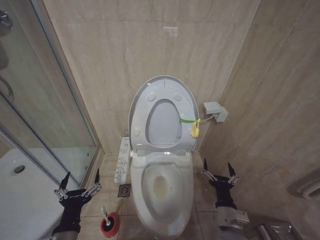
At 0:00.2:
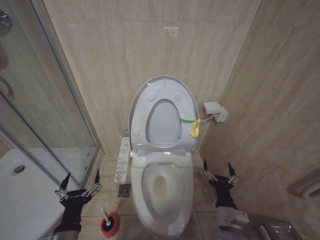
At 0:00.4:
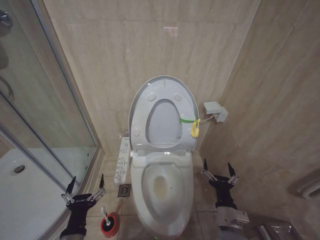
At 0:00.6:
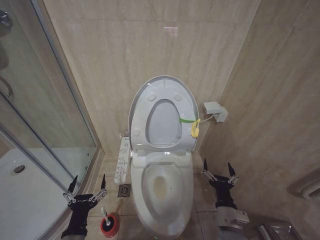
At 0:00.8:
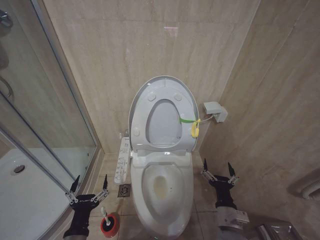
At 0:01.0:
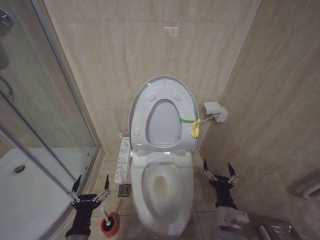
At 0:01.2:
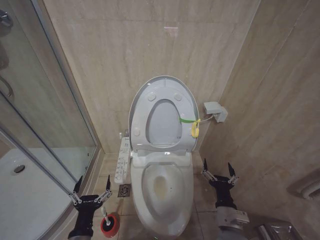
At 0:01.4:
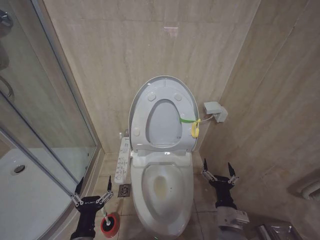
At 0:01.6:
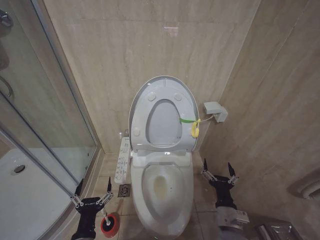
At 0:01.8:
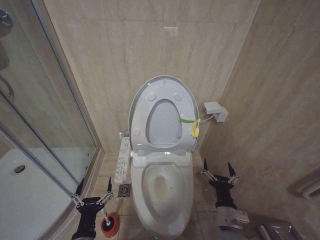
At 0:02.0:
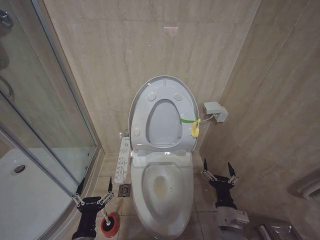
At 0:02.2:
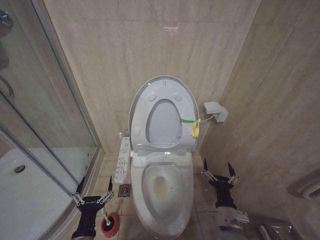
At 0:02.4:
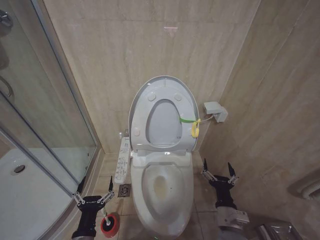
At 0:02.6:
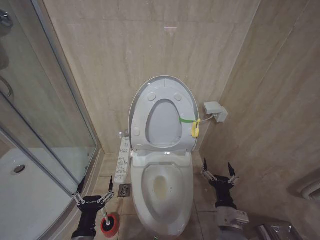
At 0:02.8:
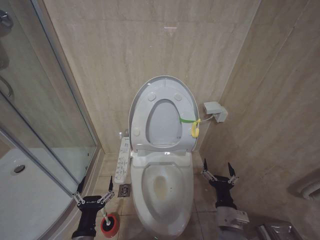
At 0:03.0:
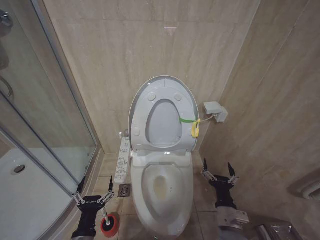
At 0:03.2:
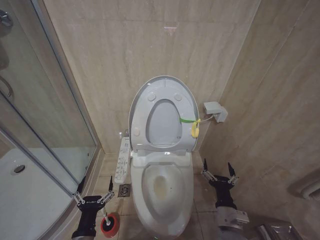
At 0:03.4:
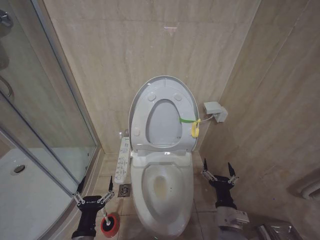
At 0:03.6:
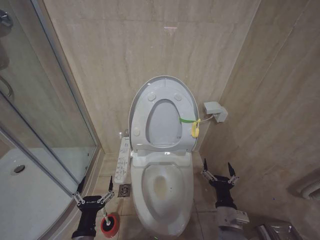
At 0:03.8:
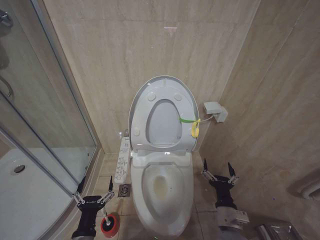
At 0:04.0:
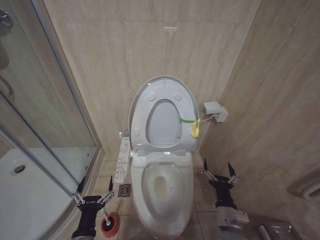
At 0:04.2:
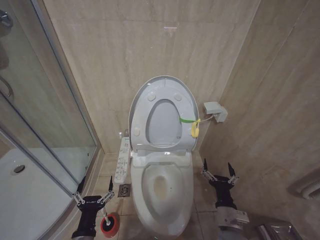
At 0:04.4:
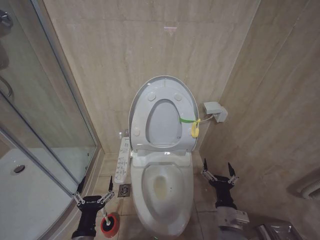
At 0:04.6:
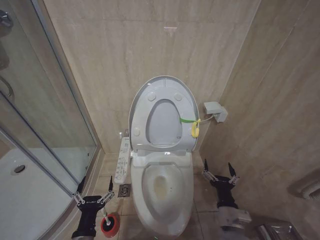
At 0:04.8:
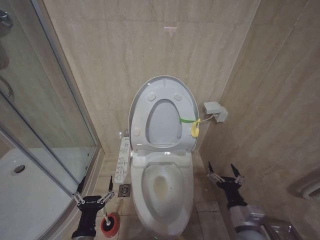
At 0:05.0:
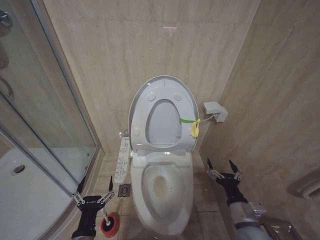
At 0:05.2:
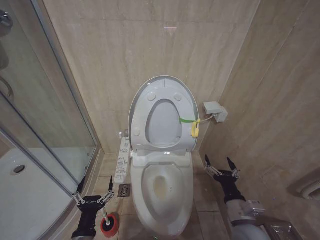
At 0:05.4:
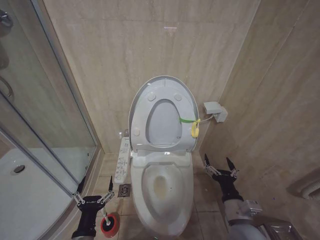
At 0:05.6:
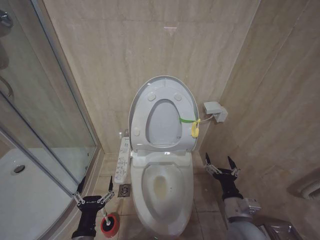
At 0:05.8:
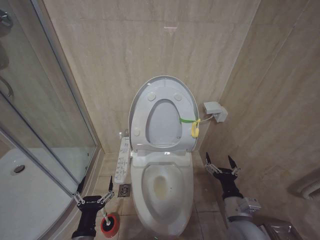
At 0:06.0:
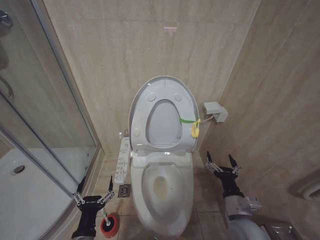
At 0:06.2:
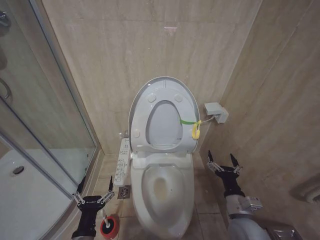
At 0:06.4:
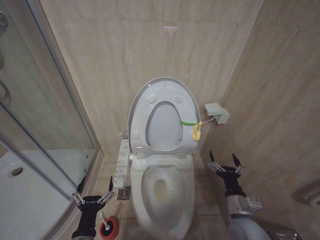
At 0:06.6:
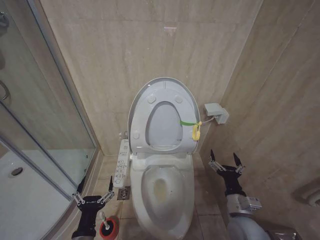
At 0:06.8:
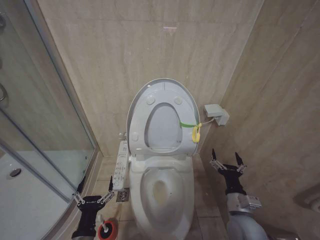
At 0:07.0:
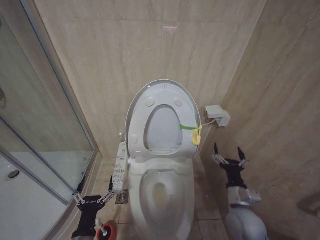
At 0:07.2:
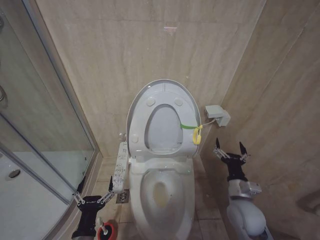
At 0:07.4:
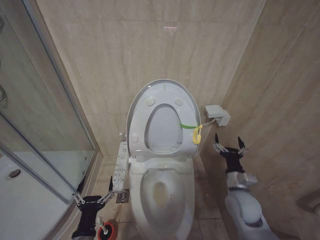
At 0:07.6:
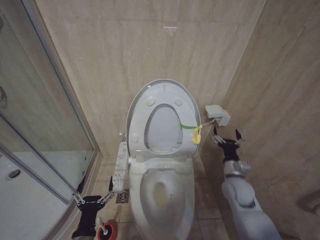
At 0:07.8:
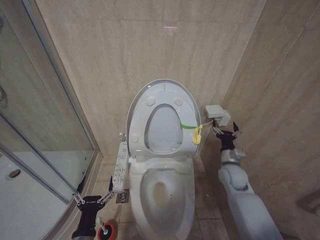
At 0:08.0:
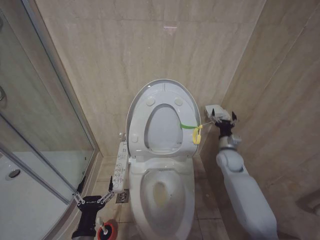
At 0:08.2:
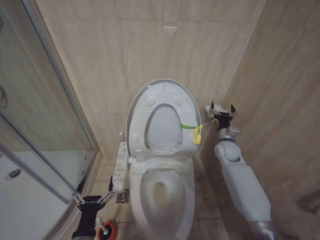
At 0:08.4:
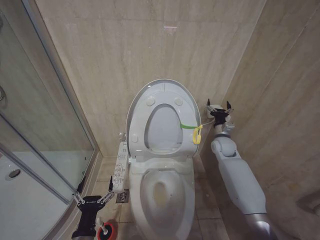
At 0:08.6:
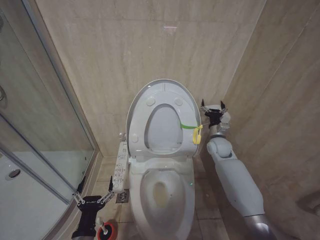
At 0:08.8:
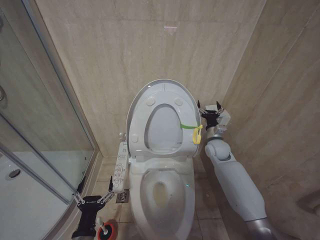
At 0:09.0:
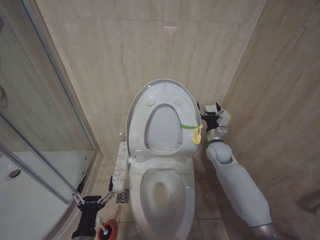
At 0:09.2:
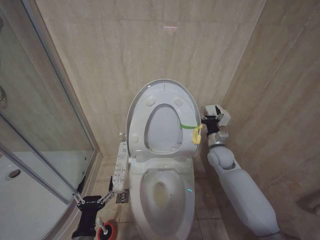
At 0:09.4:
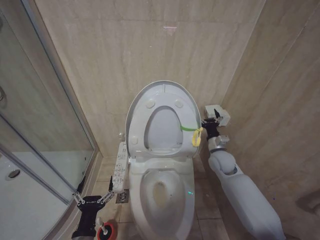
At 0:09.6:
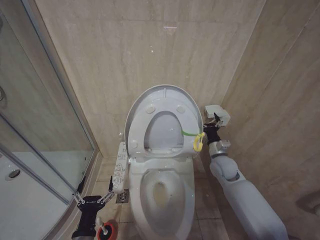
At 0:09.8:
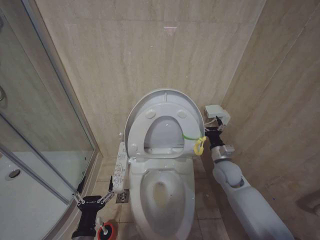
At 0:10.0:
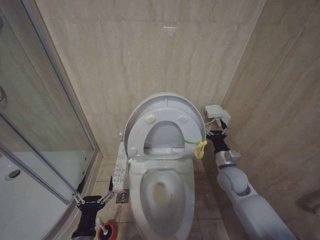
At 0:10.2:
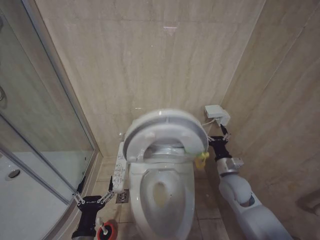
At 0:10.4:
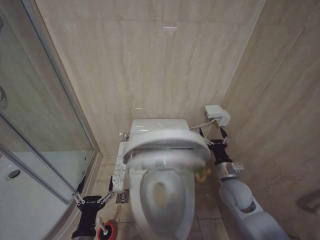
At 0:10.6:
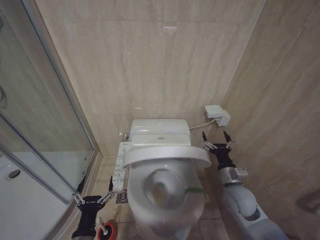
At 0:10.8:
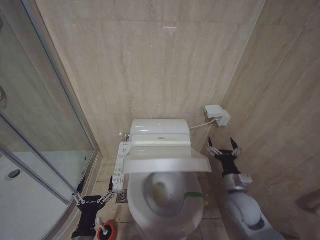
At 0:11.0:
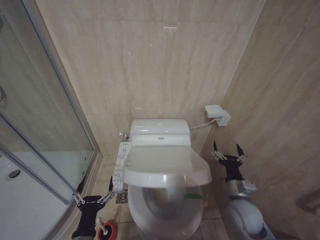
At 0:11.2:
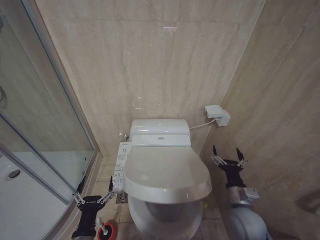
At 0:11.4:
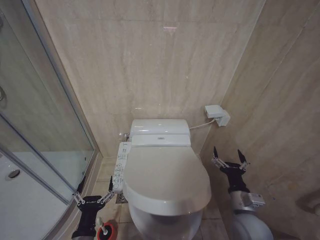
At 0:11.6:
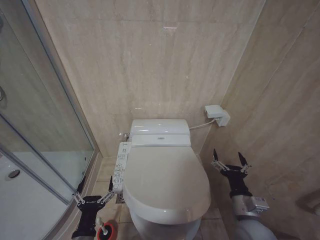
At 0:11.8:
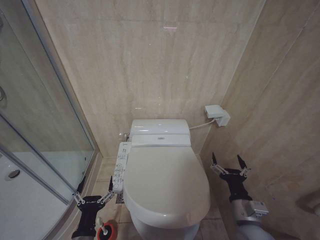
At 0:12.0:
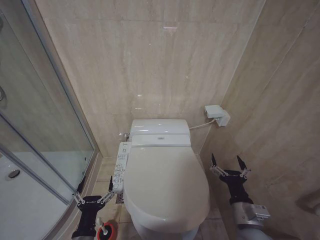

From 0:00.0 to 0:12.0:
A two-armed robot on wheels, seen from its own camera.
Task of the whole recording: Open the toilet lid, clean the toilet bowl with a toilet brush, close the toilet lid, and flush.
From 0:00.0 to 0:01.6: The left gripper goes some 5 cm downward.
From 0:01.6 to 0:04.4: Both grippers stay about where they are.
From 0:04.4 to 0:06.0: The right gripper shifts by approximately 5 cm.
From 0:06.0 to 0:07.6: The right gripper heads forward, covering roughly 10 cm.
From 0:07.6 to 0:09.0: The right gripper goes some 15 cm forward.
From 0:09.0 to 0:10.4: The right gripper shifts some 15 cm backward.
From 0:10.4 to 0:12.0: The right gripper heads backward, covering about 15 cm.

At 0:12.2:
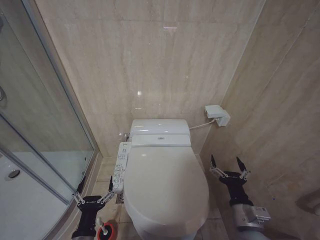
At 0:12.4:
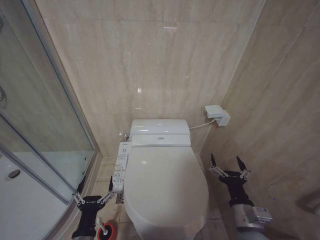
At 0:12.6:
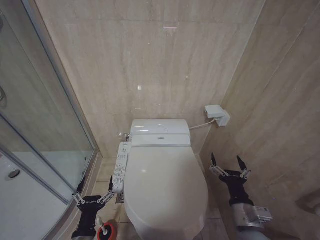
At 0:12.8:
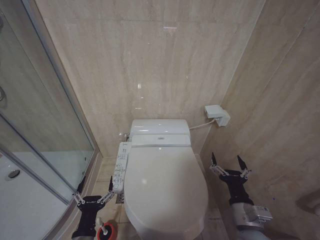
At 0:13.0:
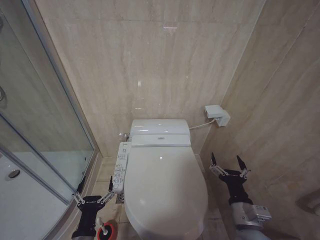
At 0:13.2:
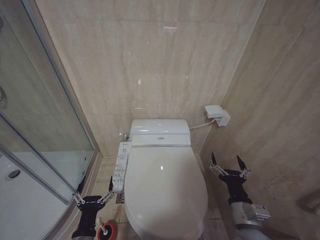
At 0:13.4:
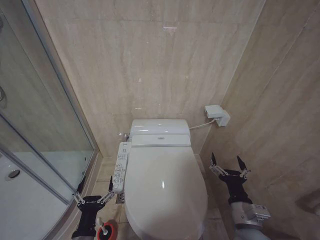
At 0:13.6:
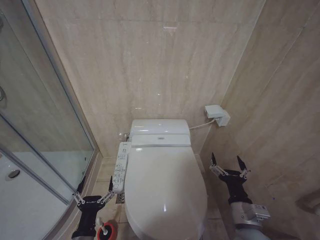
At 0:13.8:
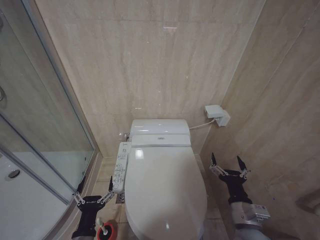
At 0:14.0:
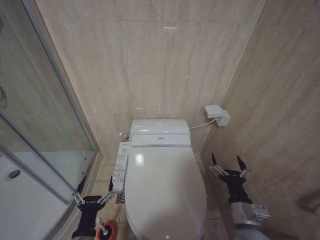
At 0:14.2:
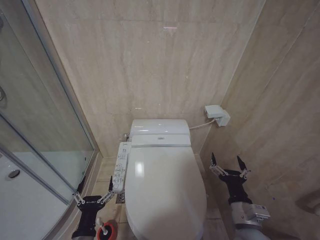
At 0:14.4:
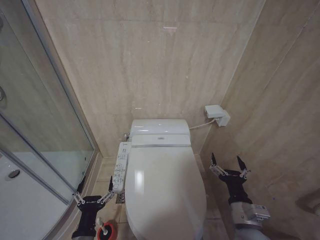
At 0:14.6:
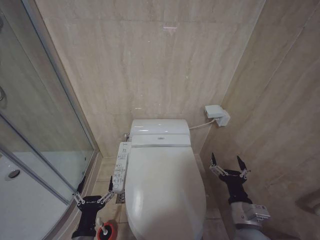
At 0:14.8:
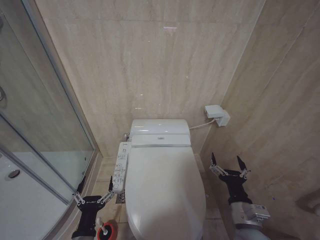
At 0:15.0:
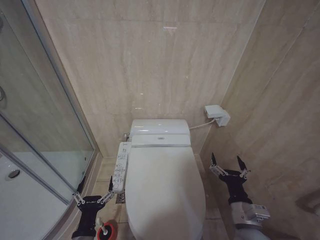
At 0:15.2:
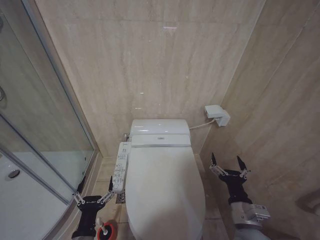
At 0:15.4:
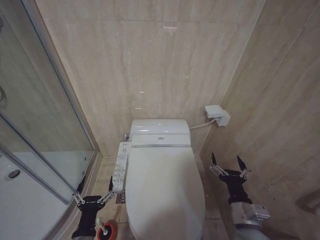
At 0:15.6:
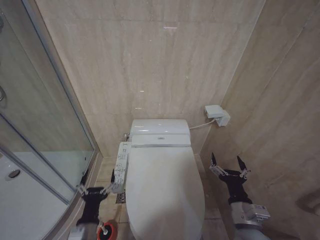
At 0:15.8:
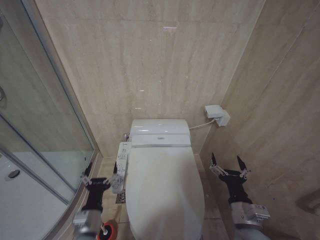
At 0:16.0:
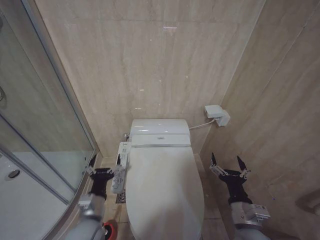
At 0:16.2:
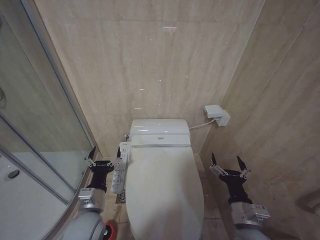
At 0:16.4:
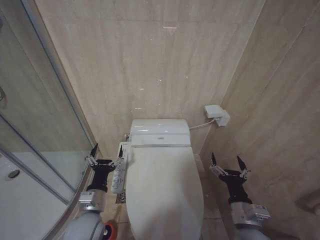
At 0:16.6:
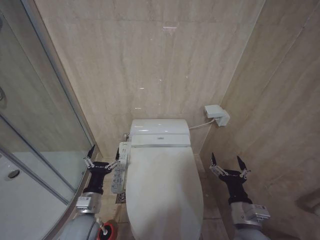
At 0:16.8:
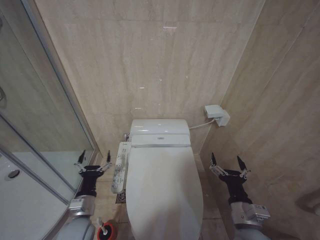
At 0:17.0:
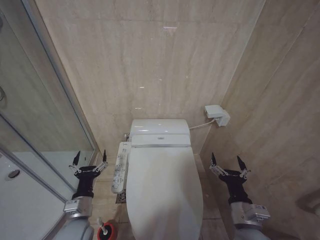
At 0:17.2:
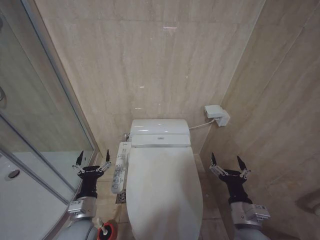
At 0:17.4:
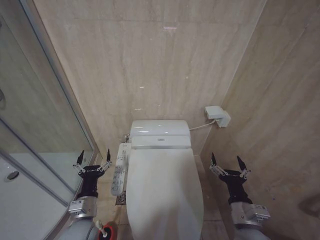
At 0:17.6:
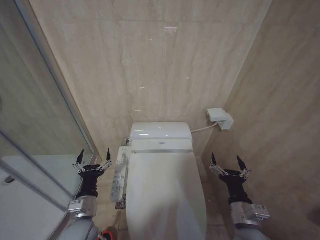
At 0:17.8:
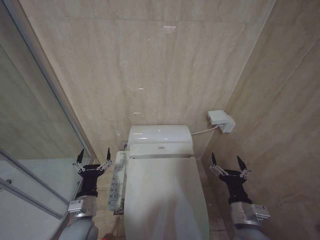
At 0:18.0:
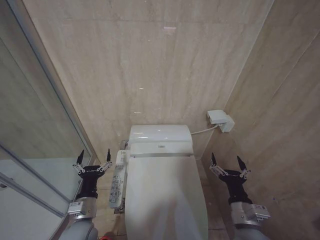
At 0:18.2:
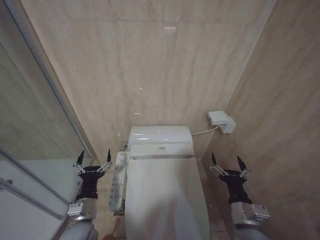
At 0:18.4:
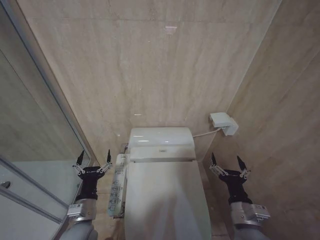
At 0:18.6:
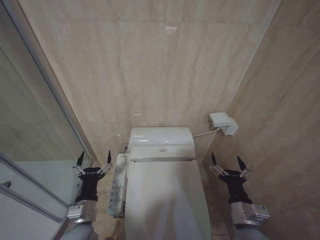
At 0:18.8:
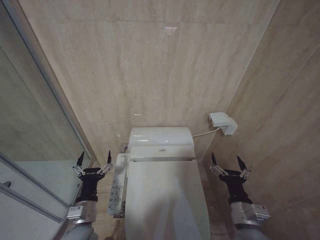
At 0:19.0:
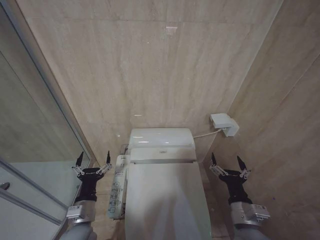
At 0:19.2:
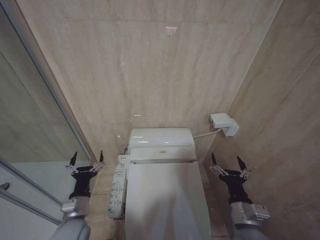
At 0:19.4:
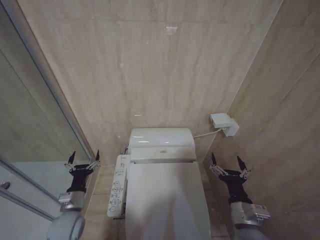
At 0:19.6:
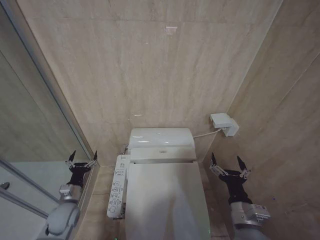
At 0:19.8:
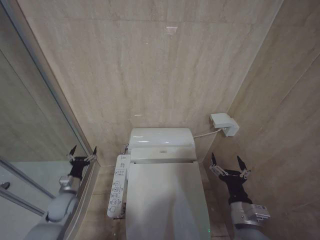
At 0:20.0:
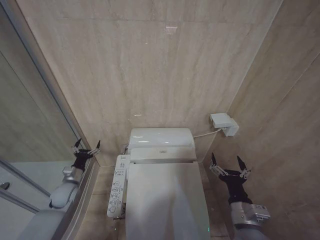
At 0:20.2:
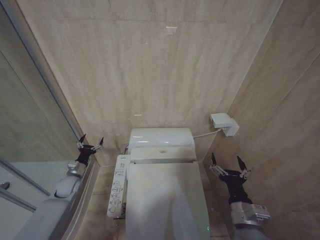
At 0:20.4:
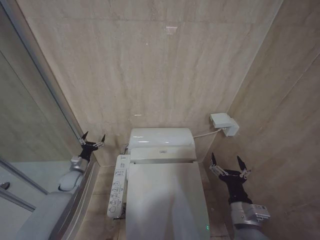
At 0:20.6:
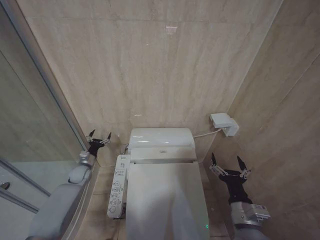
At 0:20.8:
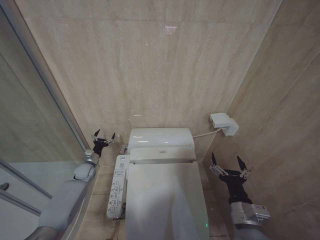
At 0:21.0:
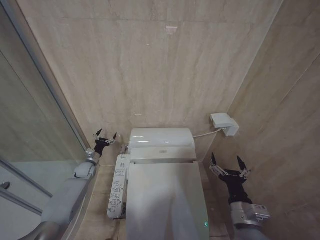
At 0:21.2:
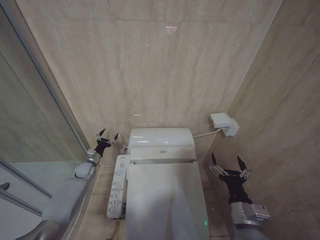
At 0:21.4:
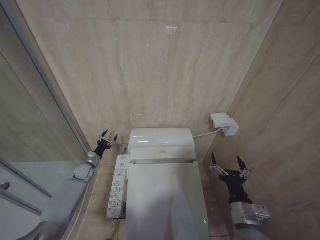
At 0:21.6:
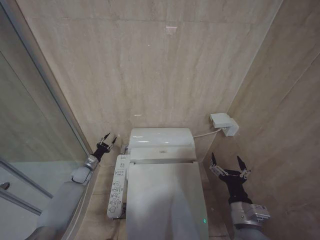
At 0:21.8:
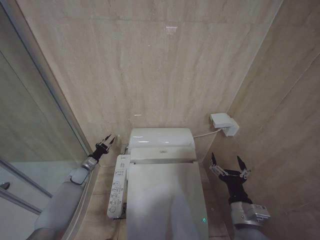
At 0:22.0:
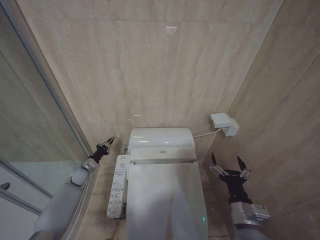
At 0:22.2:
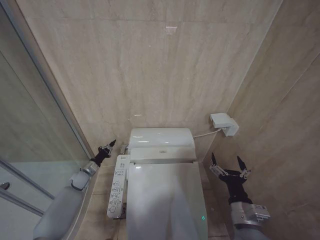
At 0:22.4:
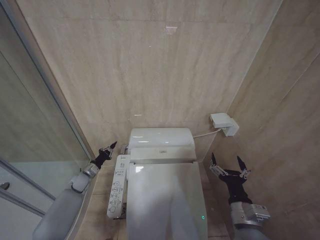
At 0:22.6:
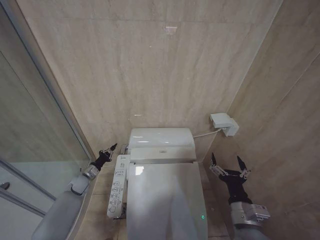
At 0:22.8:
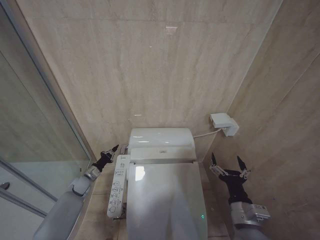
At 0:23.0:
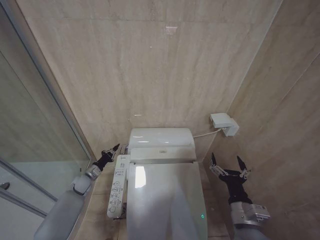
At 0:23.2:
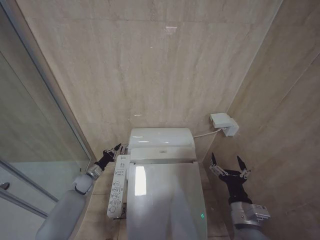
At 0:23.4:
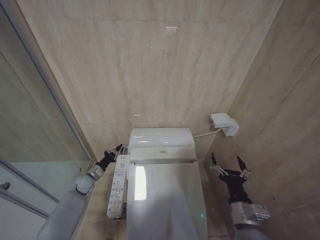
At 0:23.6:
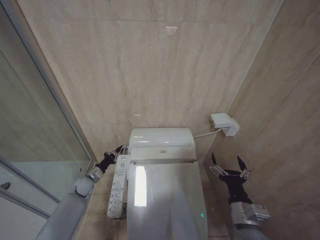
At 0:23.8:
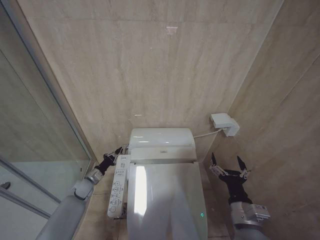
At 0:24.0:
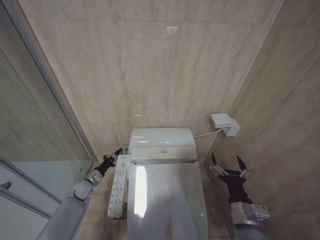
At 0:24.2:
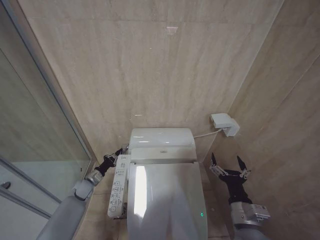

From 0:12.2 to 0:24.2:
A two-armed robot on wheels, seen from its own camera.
Task of the whole recording: Open the toilet lid, clean the toilet bowl with a toilet brush, close the toilet lid, and flush.
From 0:12.2 to 0:15.2: Neither gripper changes place.
From 0:15.2 to 0:16.6: The left gripper heads forward, covering roughly 10 cm.
From 0:16.6 to 0:18.2: The grippers stay close to where they were, moving slightly.
From 0:18.2 to 0:19.8: The left gripper heads to the left, forward and downward, covering about 20 cm.
From 0:19.8 to 0:21.2: The left gripper shifts some 20 cm forward.
From 0:21.2 to 0:22.6: The left gripper heads backward, covering roughly 5 cm, and closes up.
From 0:22.6 to 0:24.2: There are only small adjustments of the grippers.
